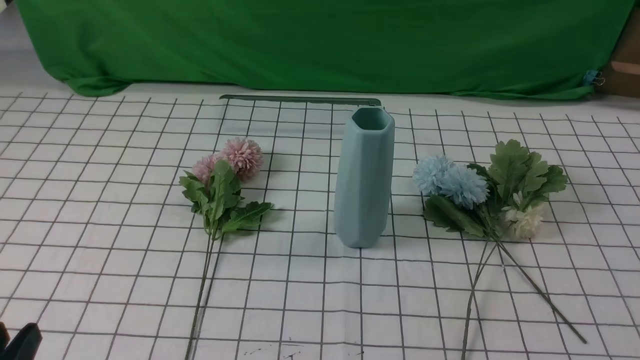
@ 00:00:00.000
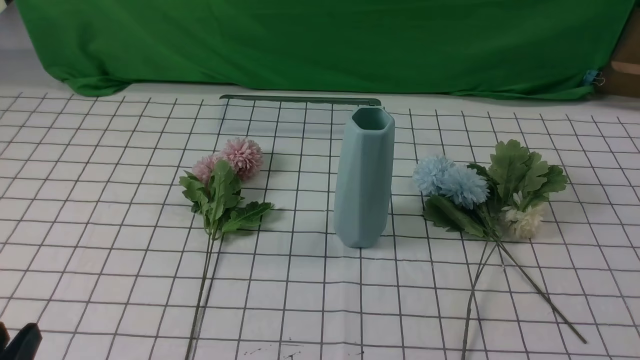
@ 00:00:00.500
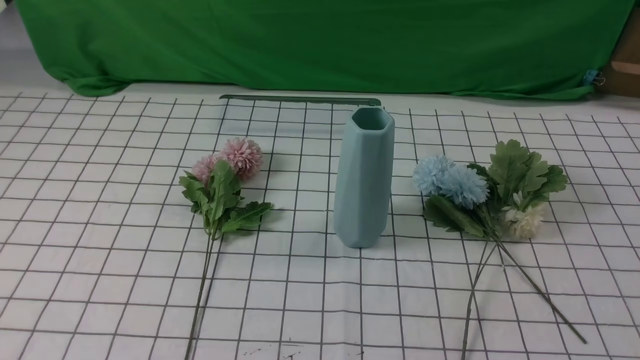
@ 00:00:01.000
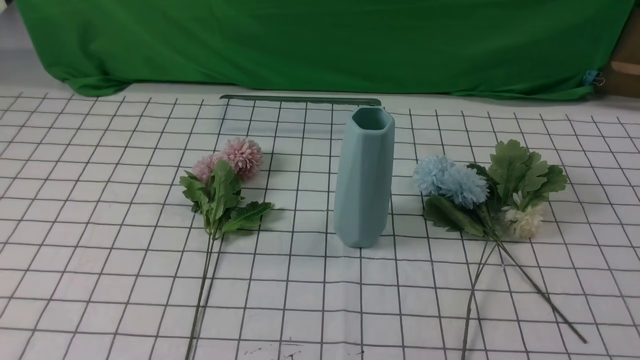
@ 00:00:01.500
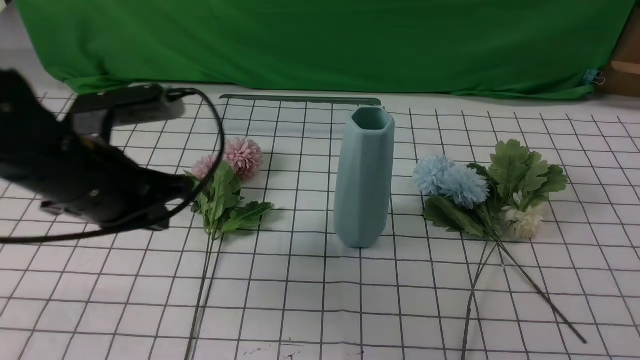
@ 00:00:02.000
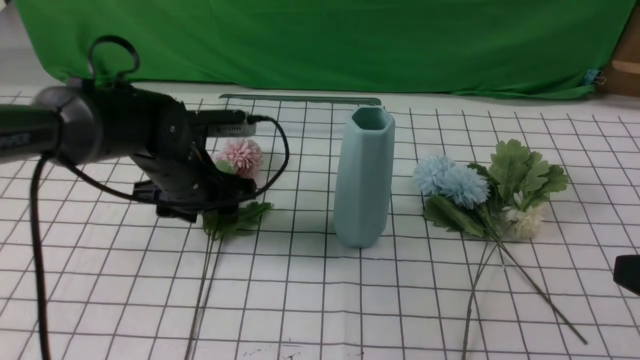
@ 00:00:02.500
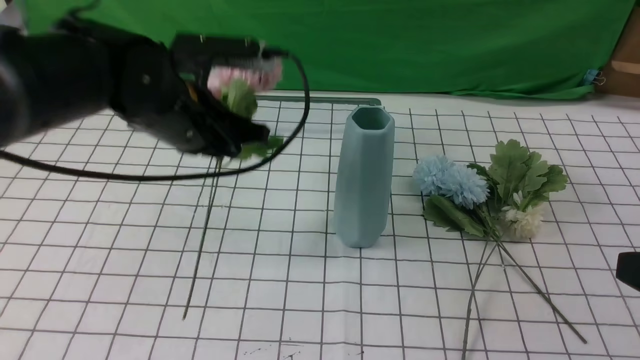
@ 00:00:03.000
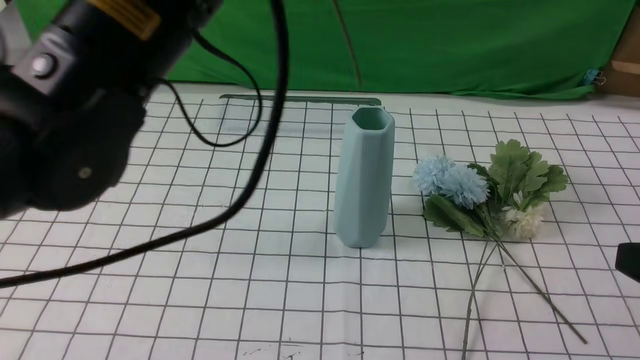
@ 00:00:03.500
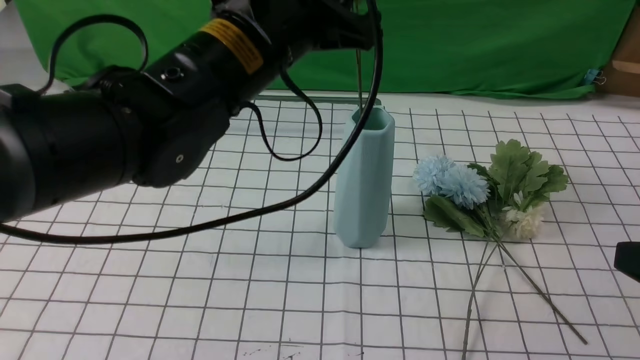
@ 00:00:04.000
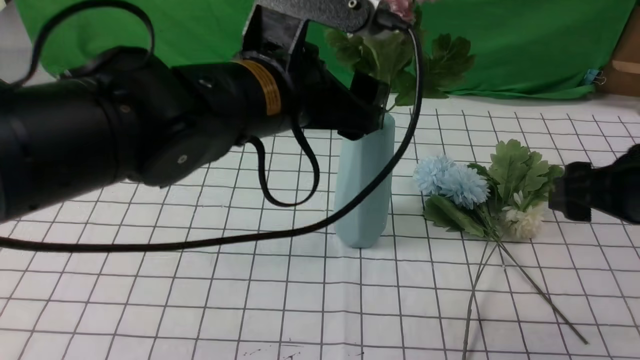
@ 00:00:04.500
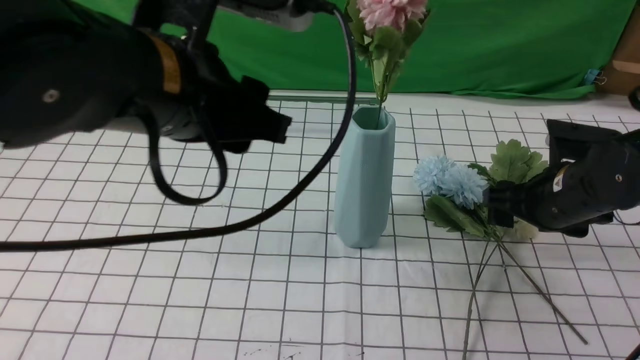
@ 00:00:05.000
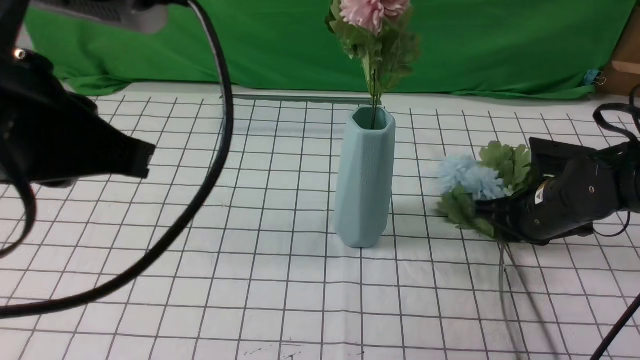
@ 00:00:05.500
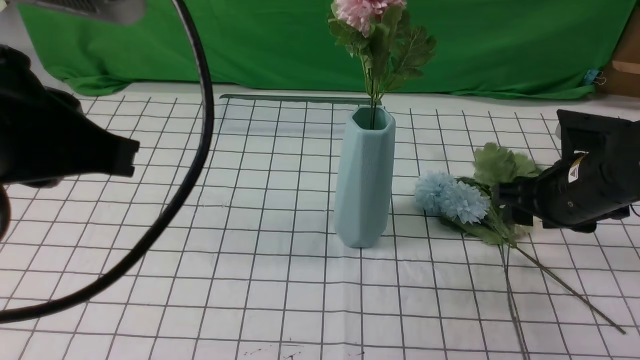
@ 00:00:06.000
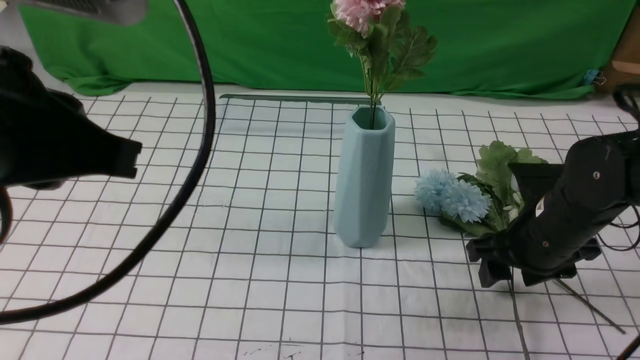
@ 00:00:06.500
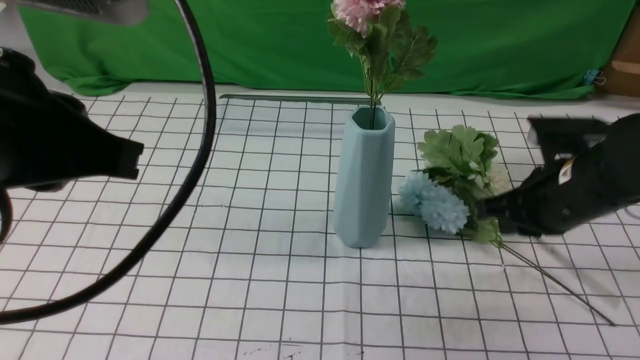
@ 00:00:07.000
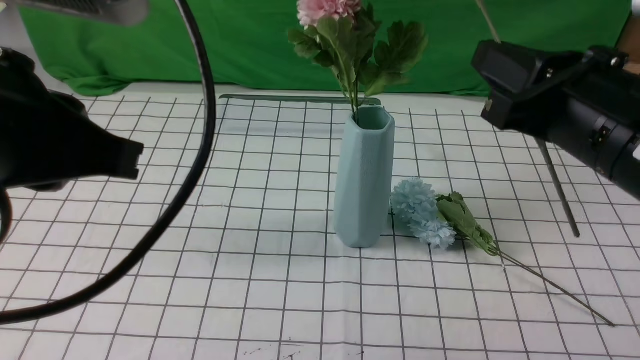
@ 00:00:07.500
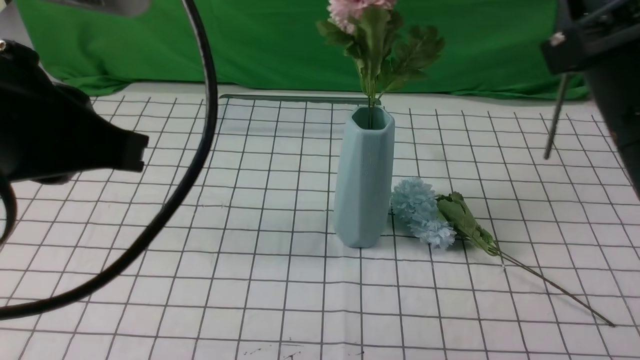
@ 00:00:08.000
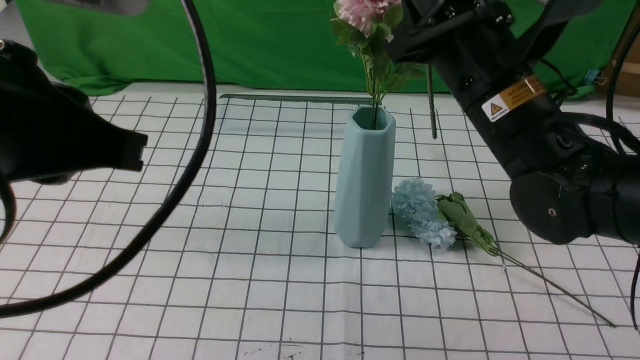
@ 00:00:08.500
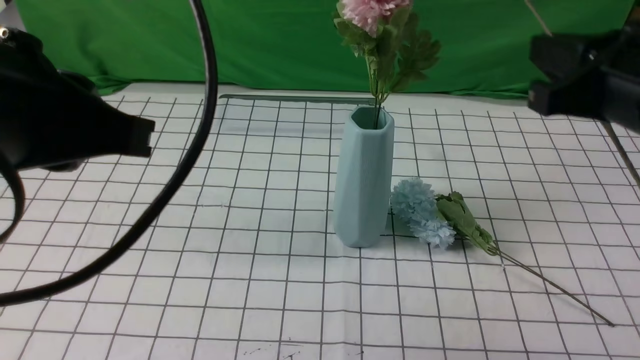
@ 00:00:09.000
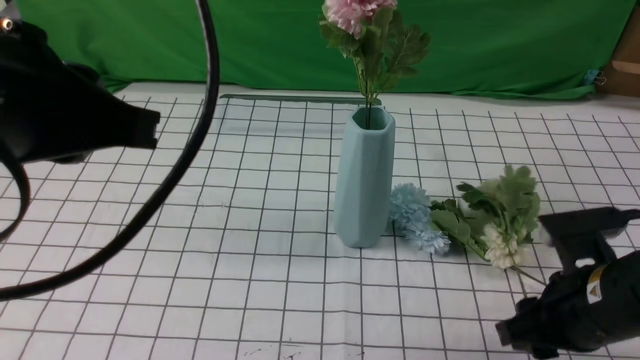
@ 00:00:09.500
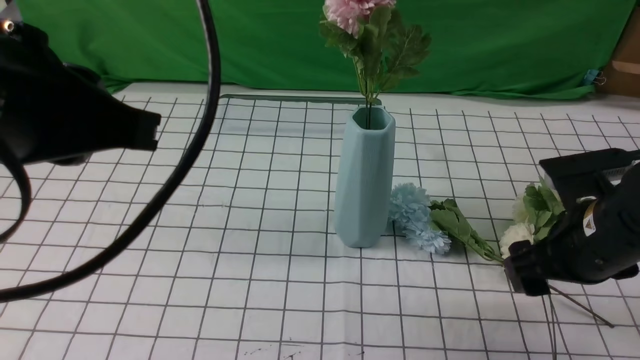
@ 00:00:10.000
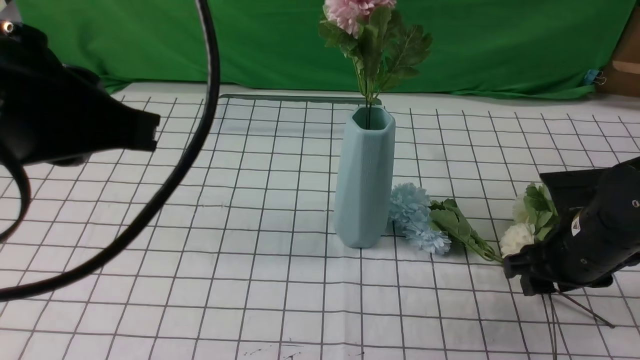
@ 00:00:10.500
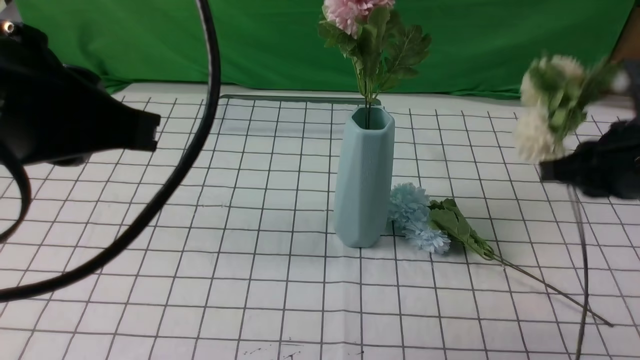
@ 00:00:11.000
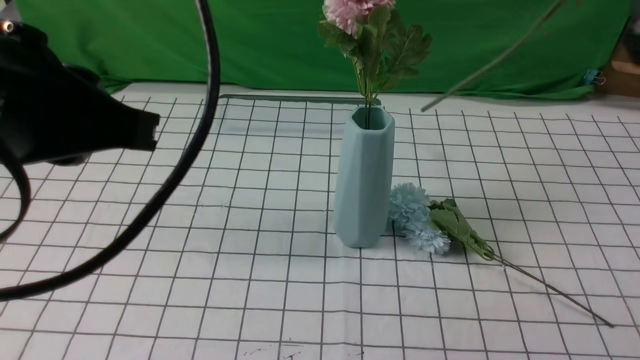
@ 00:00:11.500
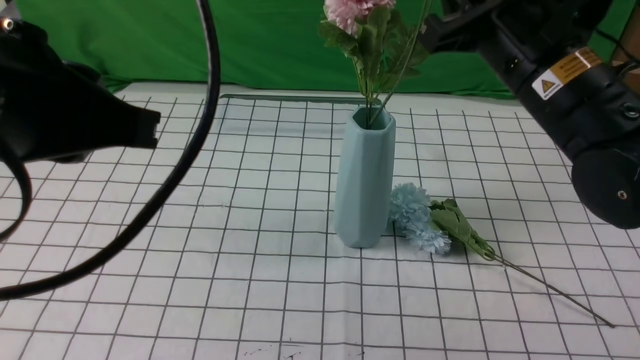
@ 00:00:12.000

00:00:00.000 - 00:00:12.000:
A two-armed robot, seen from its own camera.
Task of the whole recording: insert the flowers into the vase on the table with the white tablecloth.
Step, 00:00:00.000 - 00:00:02.500: use the left arm to grab a bunch of fresh flowers.
Step, 00:00:03.000 - 00:00:04.000: use the left arm to insert the flowers into the vase.
Step, 00:00:05.000 - 00:00:10.500: use the right arm to grab a bunch of fresh flowers.
00:00:00.000 - 00:00:02.000: The right gripper is displaced upward by about 10 cm; the left gripper goes roughly 25 cm forward, and closes up.
00:00:02.000 - 00:00:04.000: The right gripper goes about 5 cm forward, and opens its fingers; the left gripper moves up and down over about 25 cm, changing direction 2 times, and opens, then closes again.
00:00:04.000 - 00:00:06.000: The right gripper goes some 20 cm forward and downward, and closes, then opens again. The left gripper goes about 20 cm backward, to the left and upward, and opens, then closes once more.
00:00:06.000 - 00:00:08.000: The right gripper goes approximately 20 cm upward and backward, and closes up.
00:00:08.000 - 00:00:10.000: The right gripper goes about 15 cm downward, and opens up.
00:00:10.000 - 00:00:12.000: The right gripper heads upward and to the left, covering about 15 cm, and closes its fingers.

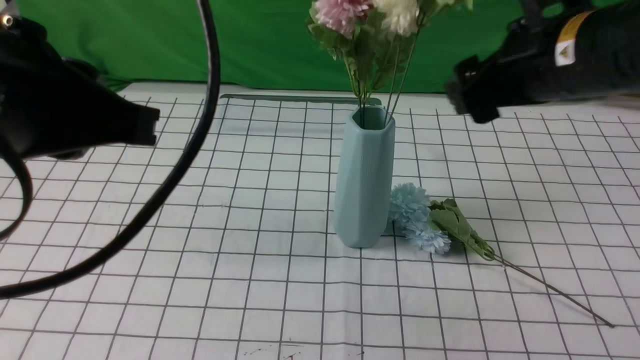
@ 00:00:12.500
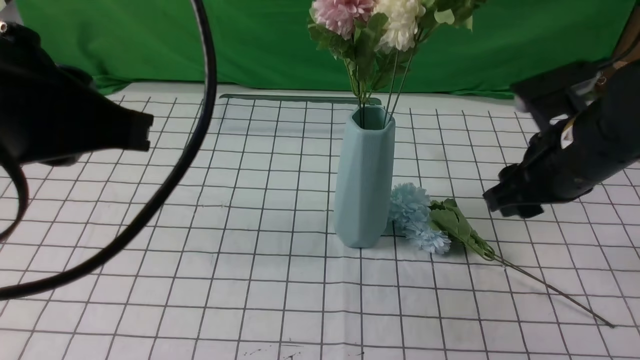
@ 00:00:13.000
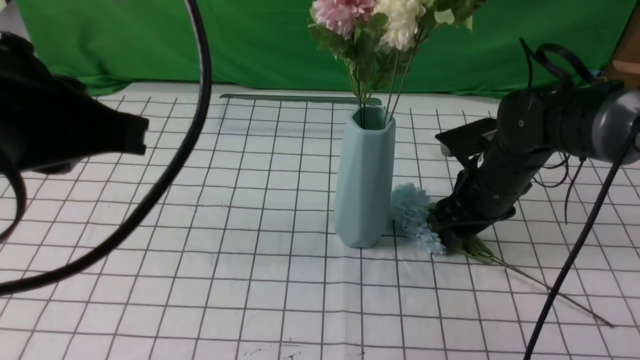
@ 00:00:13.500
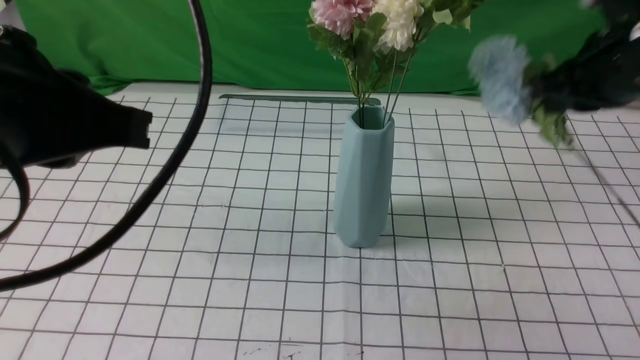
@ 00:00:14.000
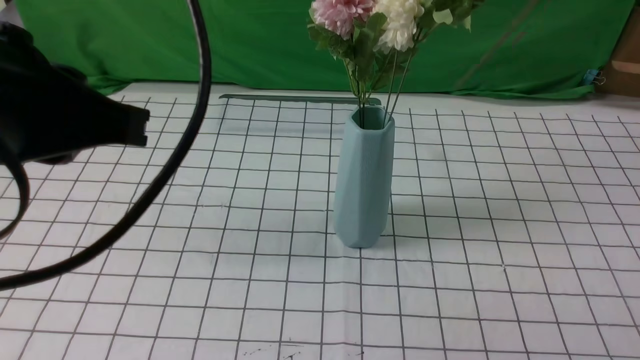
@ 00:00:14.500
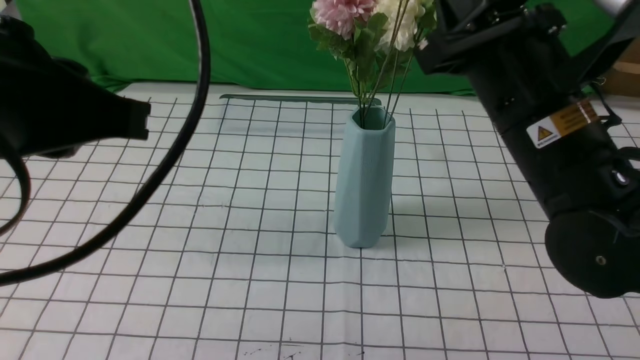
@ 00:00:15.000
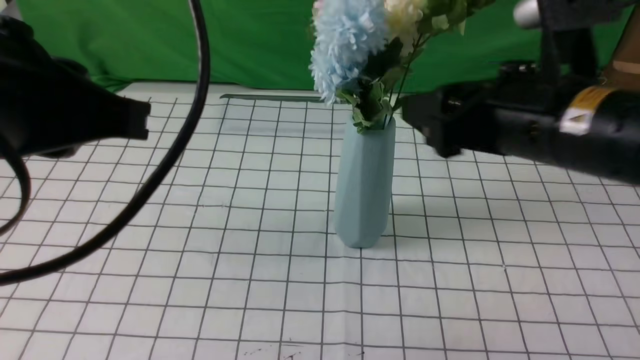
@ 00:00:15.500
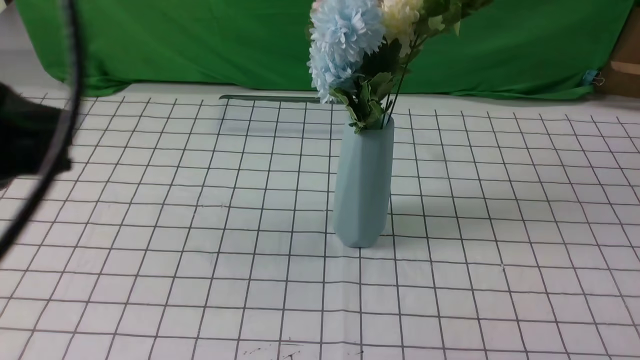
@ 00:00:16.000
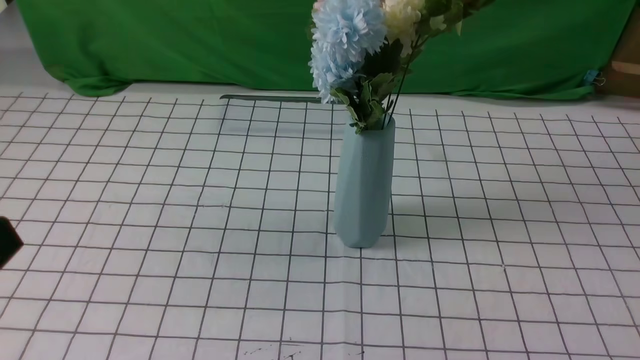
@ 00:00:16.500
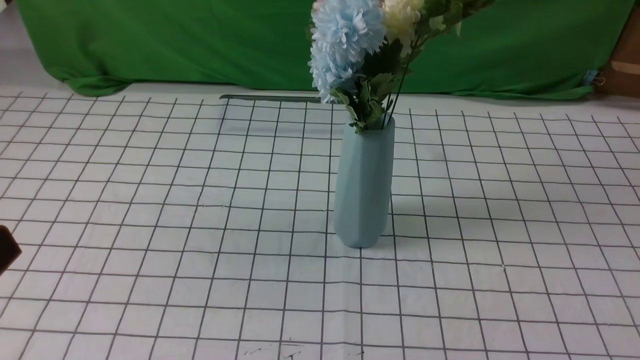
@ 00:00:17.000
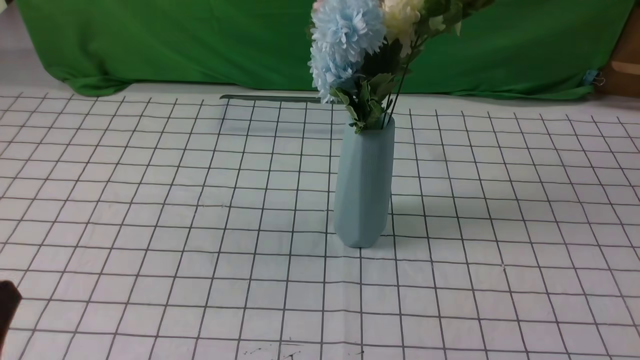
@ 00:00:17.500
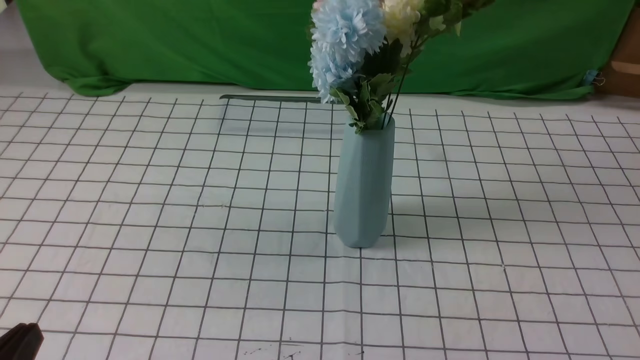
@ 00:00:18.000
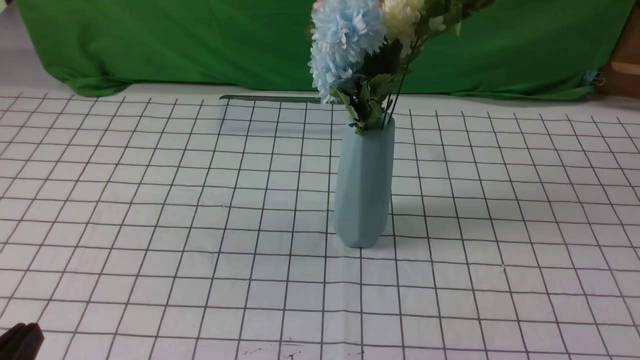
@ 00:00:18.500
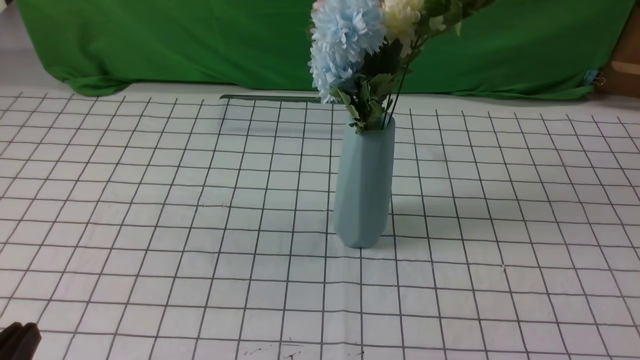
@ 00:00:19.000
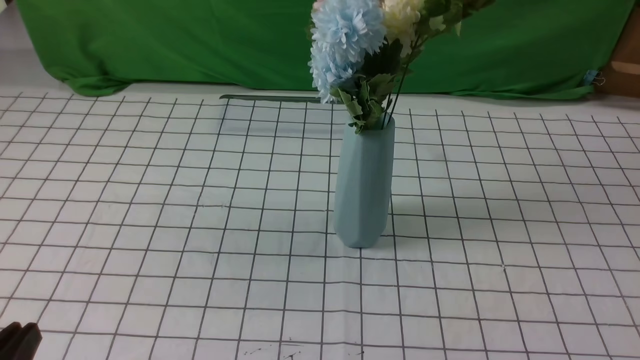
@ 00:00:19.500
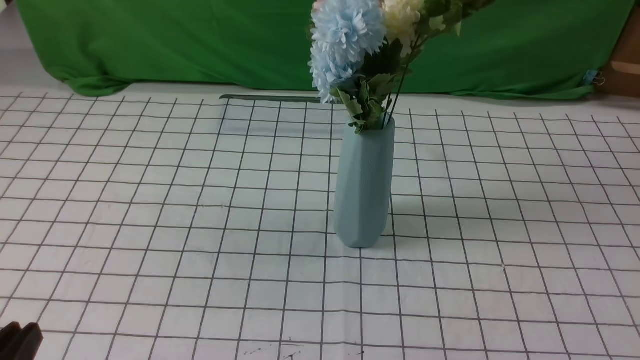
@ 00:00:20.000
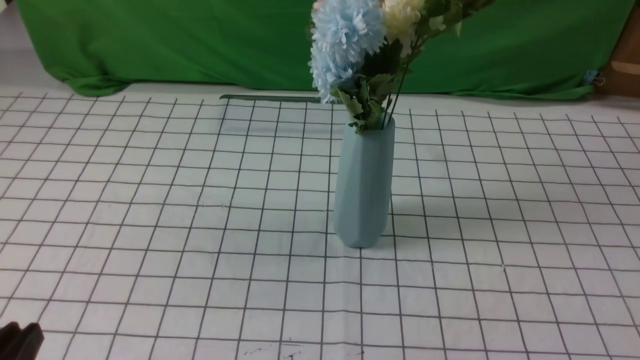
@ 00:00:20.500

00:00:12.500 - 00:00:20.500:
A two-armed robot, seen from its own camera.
Task of the whole recording: insert the flowers into the vase on the table with the white tablecloth.
Step, 00:00:12.500 - 00:00:13.500: use the right arm to grab a bunch of fresh flowers.
Step, 00:00:14.000 - 00:00:15.500: use the right arm to insert the flowers into the vase.
00:00:12.500 - 00:00:14.500: The right gripper heads backward, covering roughly 10 cm, goes downward and returns, approximately 20 cm each way, and closes up.
00:00:14.500 - 00:00:16.500: The right gripper goes approximately 20 cm backward and to the right, and opens, then closes once more. The left gripper heads backward, downward and to the left, covering roughly 15 cm.
00:00:16.500 - 00:00:18.500: The left gripper goes some 15 cm downward.
